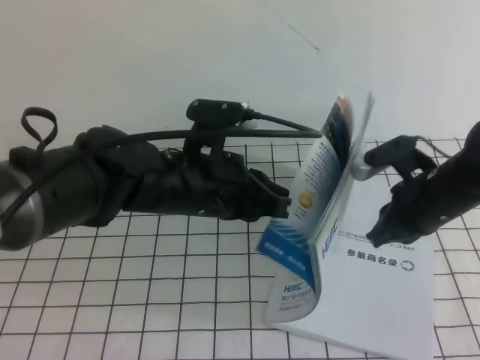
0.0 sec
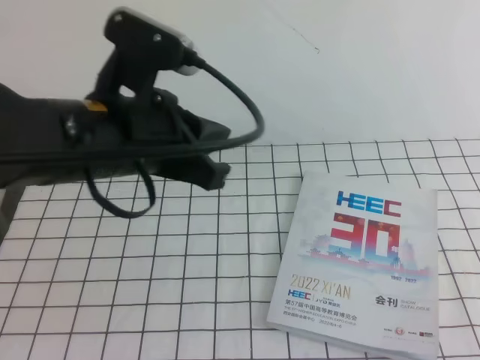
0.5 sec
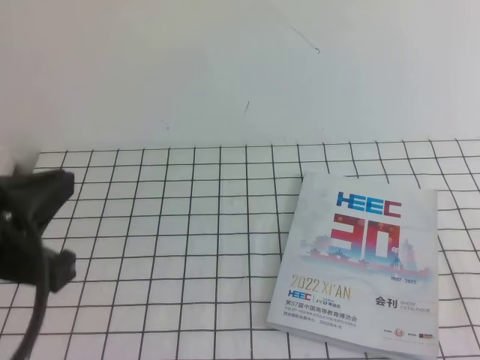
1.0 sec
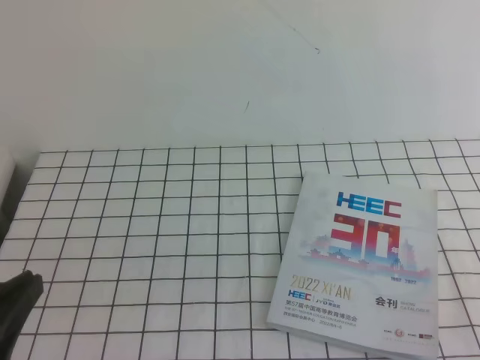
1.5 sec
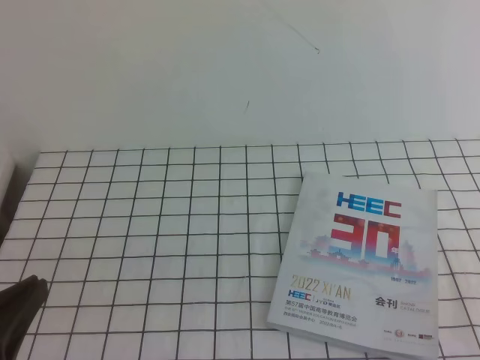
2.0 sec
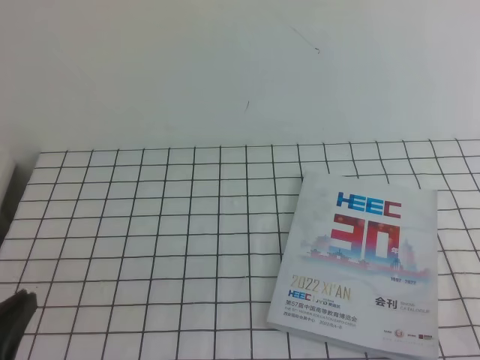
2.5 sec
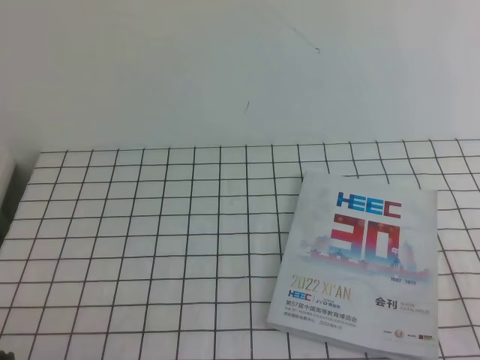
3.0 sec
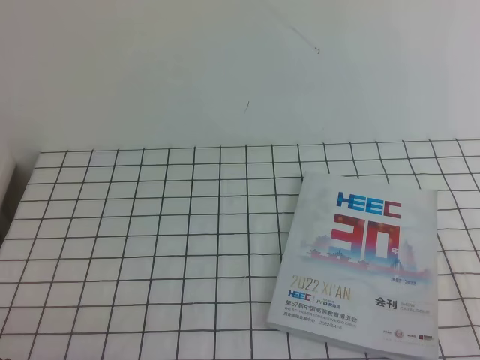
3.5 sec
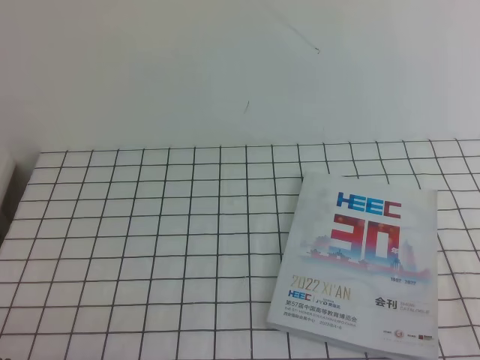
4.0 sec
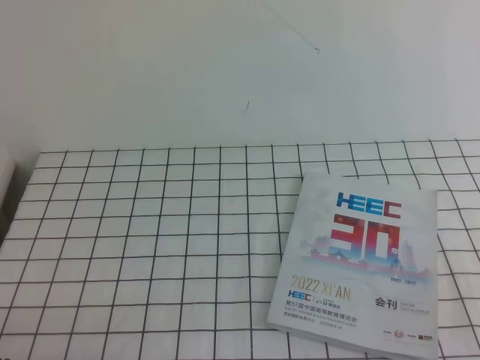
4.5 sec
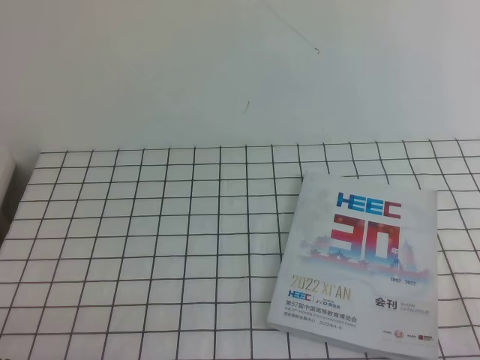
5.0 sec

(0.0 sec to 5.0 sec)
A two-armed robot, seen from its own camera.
Task of the whole recording: on the white tablecloth, hold the book with one hand and close it with the other.
Step, 0.0 sec - 5.0 sec: Close the open book.
0.0 sec - 2.5 sec: The right gripper heads backward, covering approximately 30 cm, while the left gripper heads backward and to the left, covering approximately 30 cm.
2.5 sec - 5.0 sec: The left gripper moves downward, some 10 cm.
